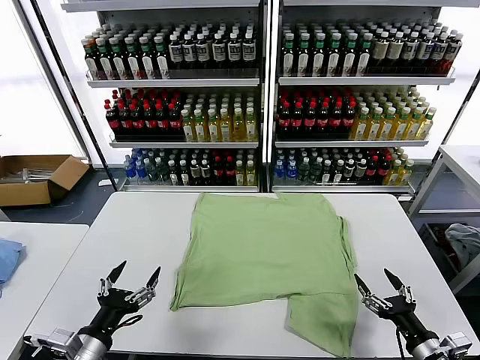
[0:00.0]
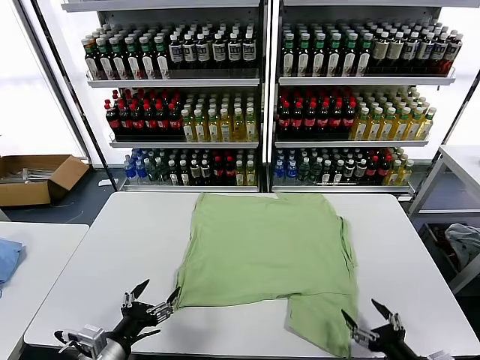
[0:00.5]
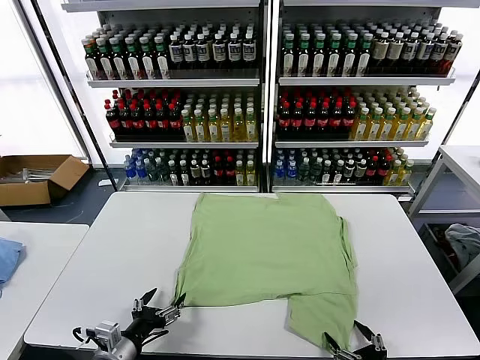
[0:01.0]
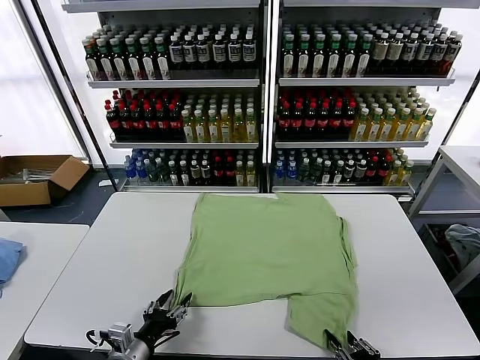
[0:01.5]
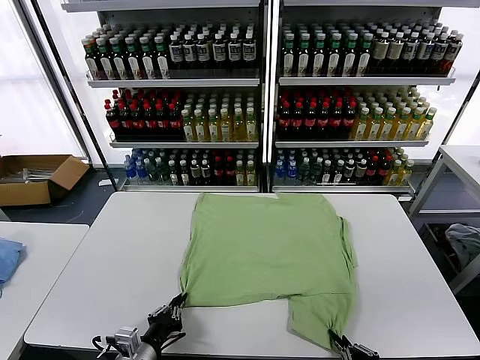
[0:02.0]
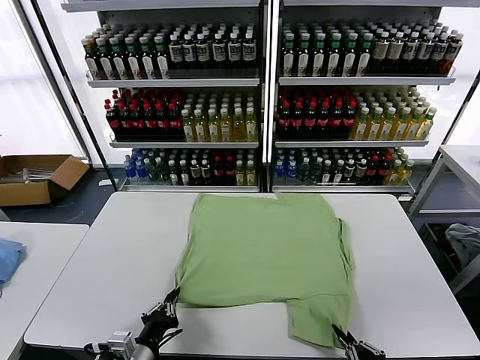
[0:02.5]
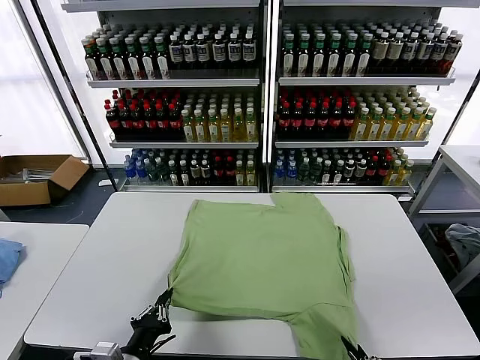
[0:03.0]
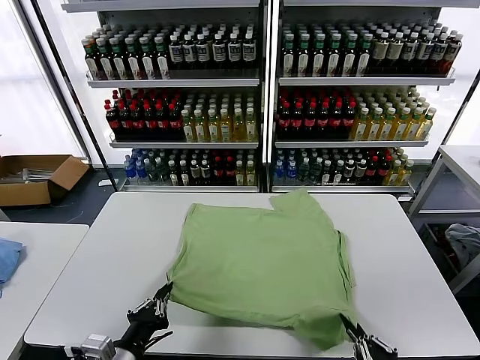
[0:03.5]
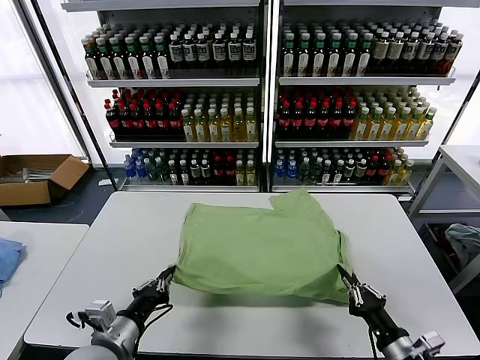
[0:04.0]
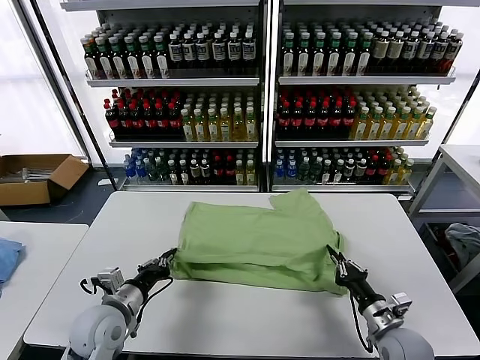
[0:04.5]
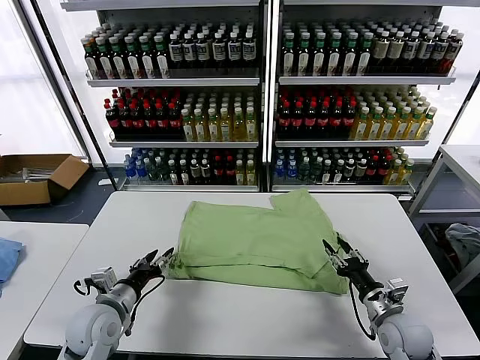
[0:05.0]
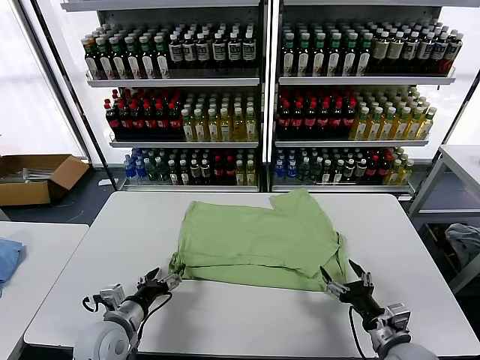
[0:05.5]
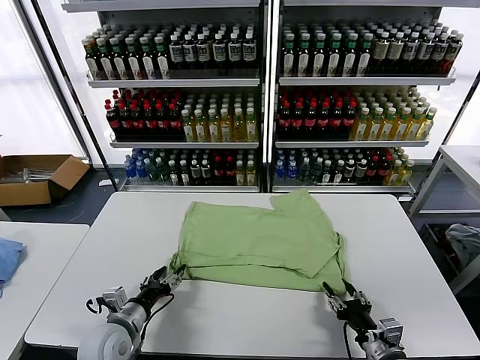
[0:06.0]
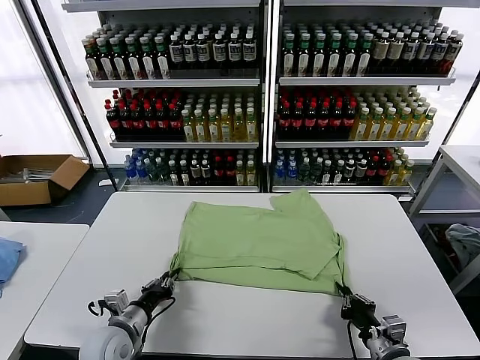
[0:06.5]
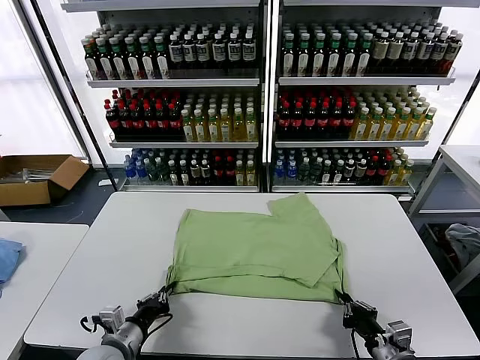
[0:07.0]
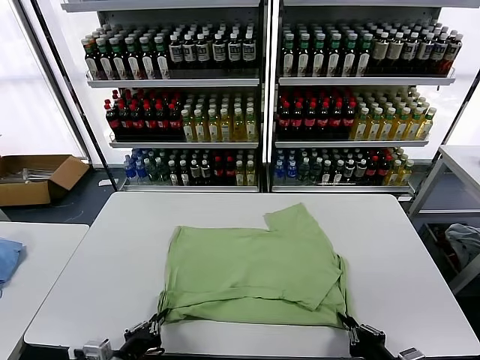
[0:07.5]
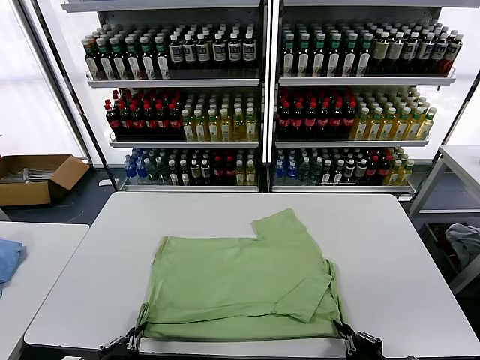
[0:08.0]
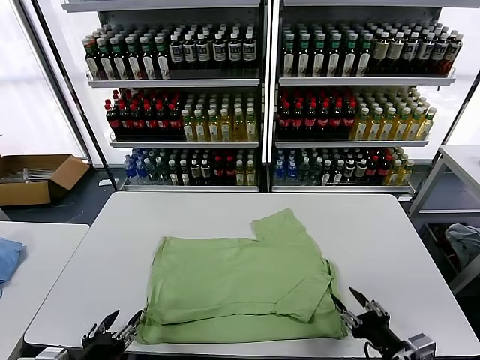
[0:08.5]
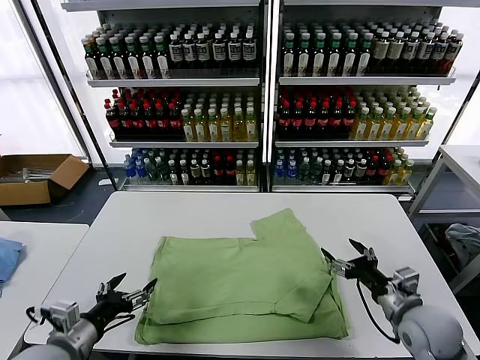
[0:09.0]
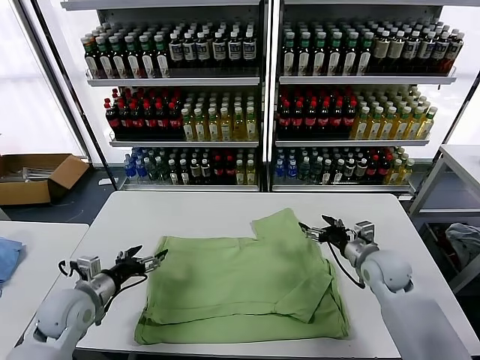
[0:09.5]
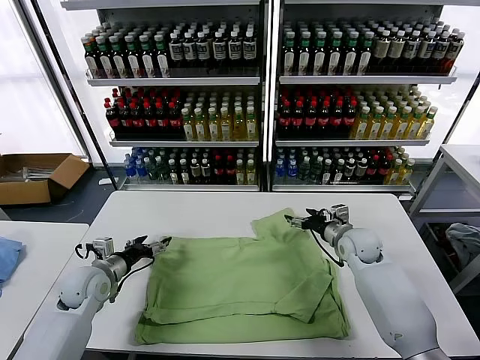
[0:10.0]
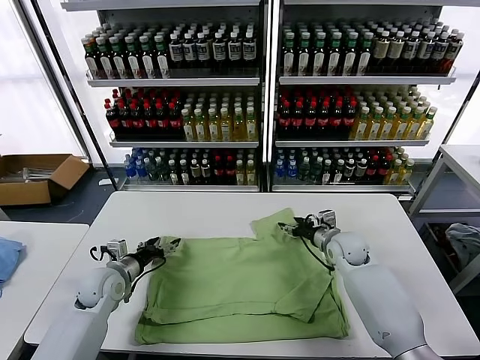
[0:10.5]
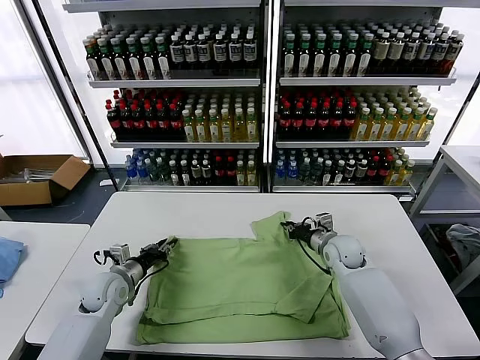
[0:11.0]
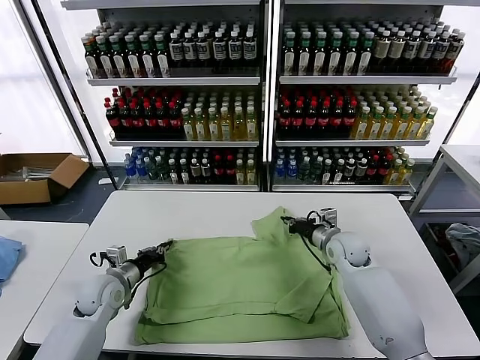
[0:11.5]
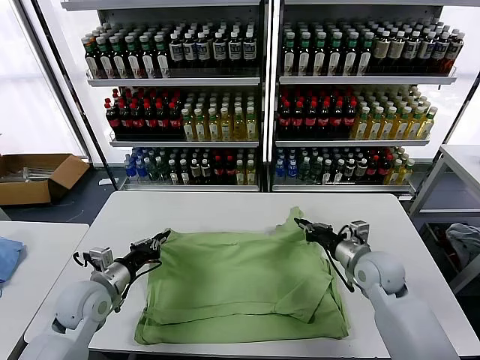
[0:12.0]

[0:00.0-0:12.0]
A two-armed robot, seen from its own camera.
Task of the whole recording: fold and organize the clothes.
Step, 0.0 to 2.0 s: use both grippers simultaneously to clamp the lower edge of the clothing fabric.
Step, 2.5 to 5.0 s: use both grippers to drag the lower edge of the fabric forward and fold it over the upper edge.
Step, 5.5 to 8.0 s: Drag the clothes downward with both gripper.
Step, 8.5 to 11.0 s: use both grippers simultaneously to clamp the upper edge of the clothing fabric.
2.0 to 4.0 s: The left gripper moves upward, roughly 10 cm; the right gripper travels forward by some 10 cm.
4.0 to 6.0 s: The right gripper travels forward and back again, roughly 10 cm each way, and opens its fingers; the left gripper is displaced downward and forward by some 10 cm, and opens its fingers.
6.0 to 8.0 s: The left gripper moves backward and upward, approximately 15 cm, and closes up. Meanwhile the right gripper is displaced backward by roughly 10 cm.
8.0 to 10.0 s: The two grippers go about 30 cm forward. The left gripper opens its fingers, while the right gripper opens its fingers.
10.0 to 12.0 s: The right gripper is displaced backward by about 10 cm, and closes up, while the left gripper moves about 5 cm, and closes.

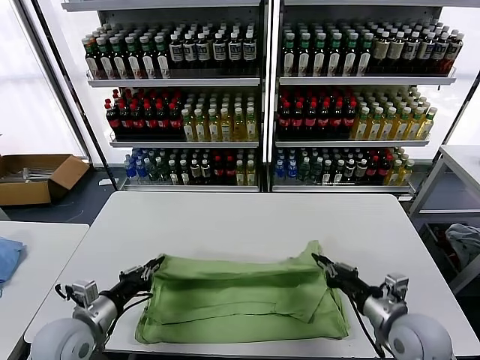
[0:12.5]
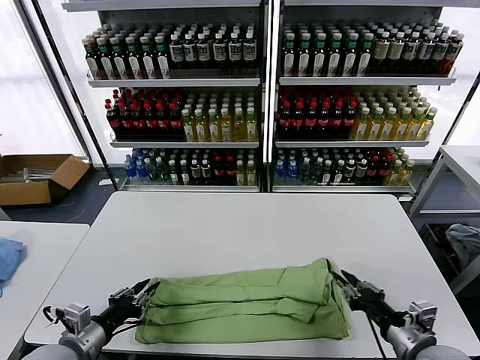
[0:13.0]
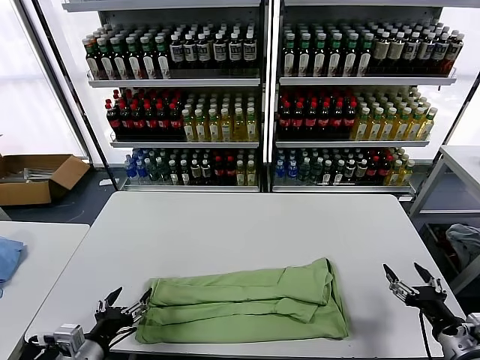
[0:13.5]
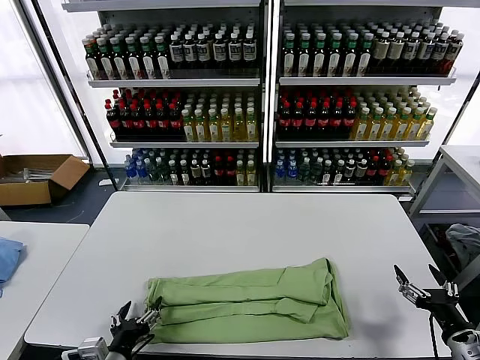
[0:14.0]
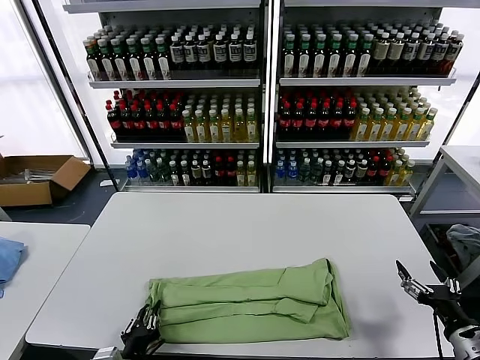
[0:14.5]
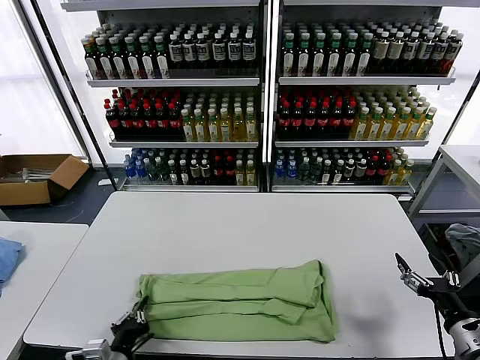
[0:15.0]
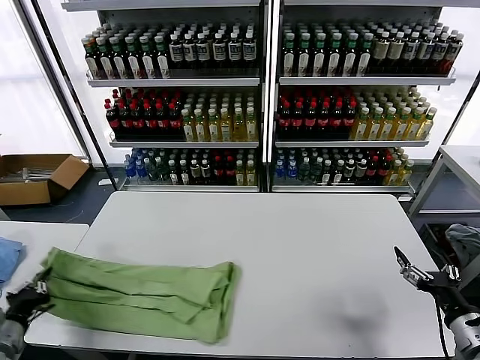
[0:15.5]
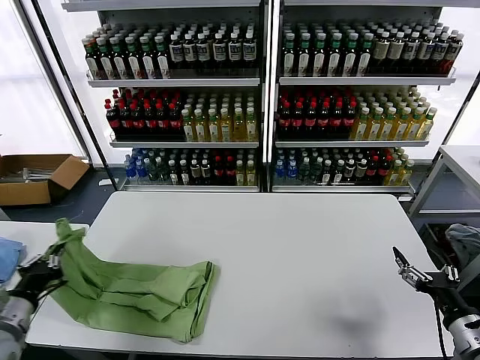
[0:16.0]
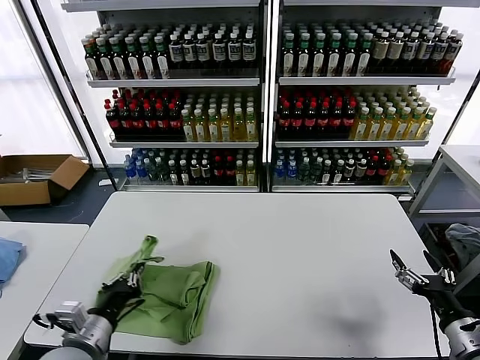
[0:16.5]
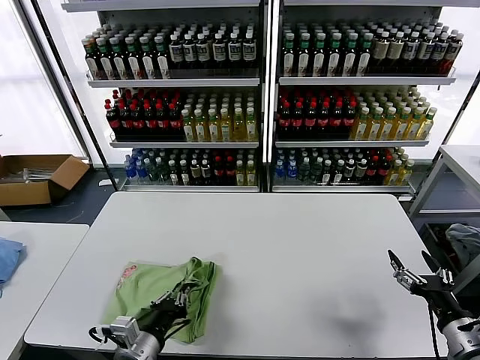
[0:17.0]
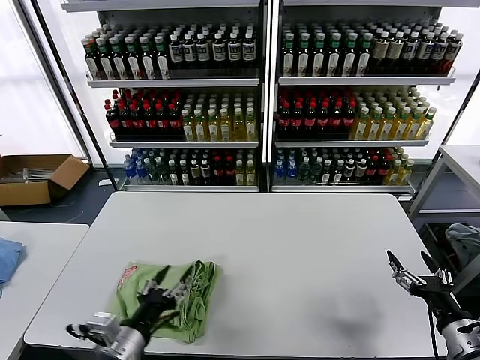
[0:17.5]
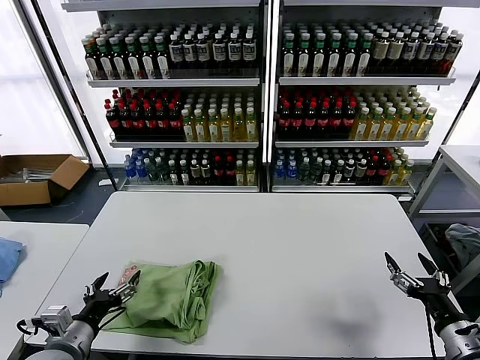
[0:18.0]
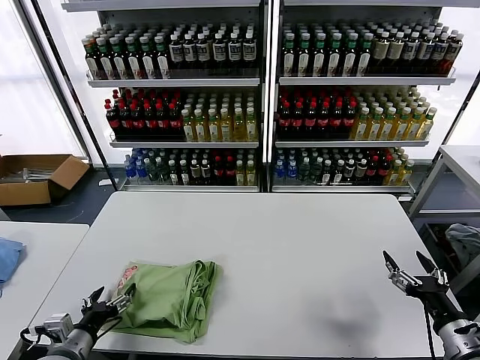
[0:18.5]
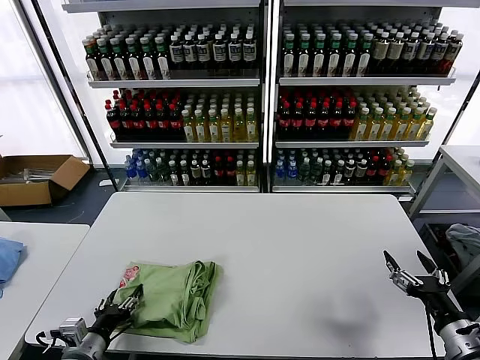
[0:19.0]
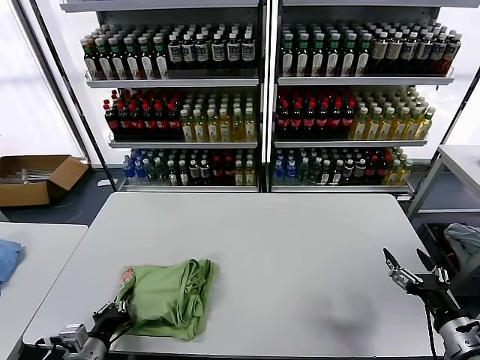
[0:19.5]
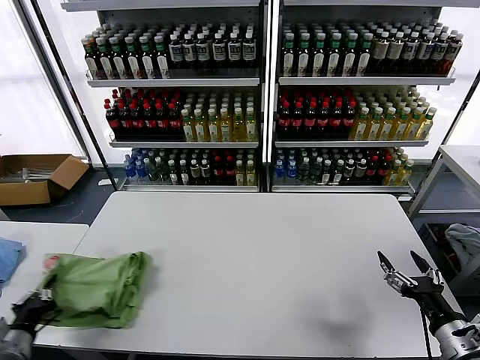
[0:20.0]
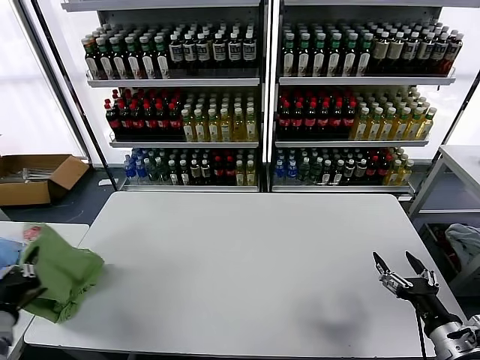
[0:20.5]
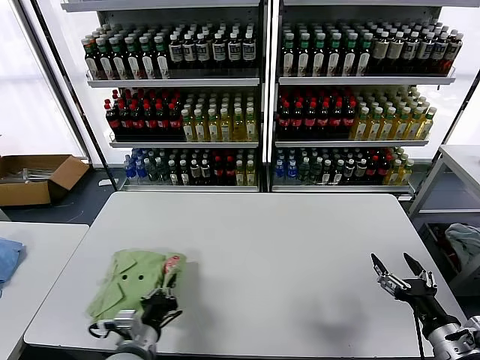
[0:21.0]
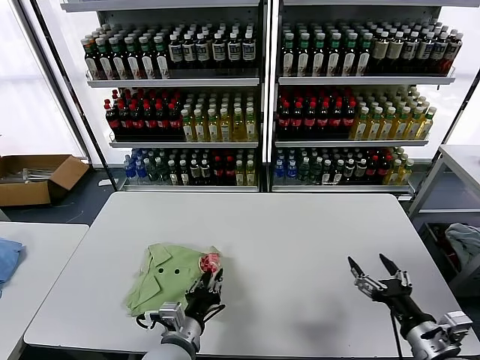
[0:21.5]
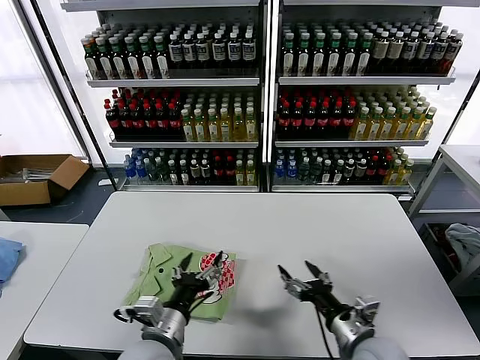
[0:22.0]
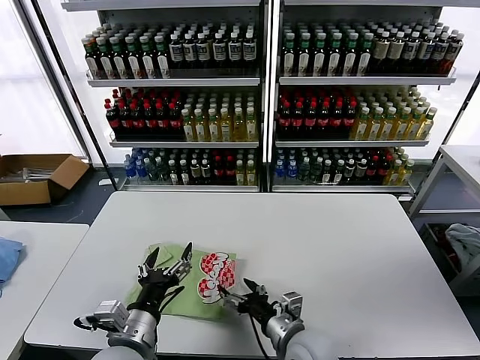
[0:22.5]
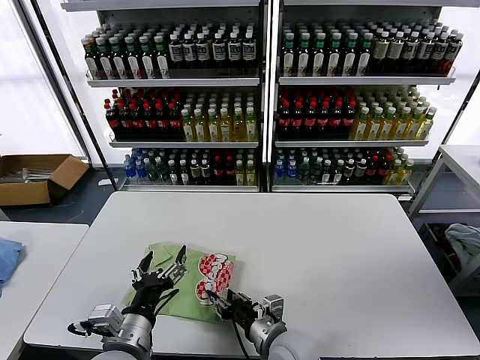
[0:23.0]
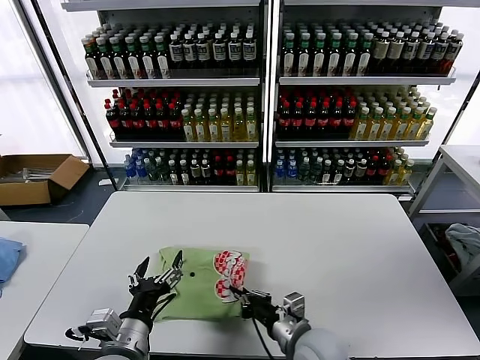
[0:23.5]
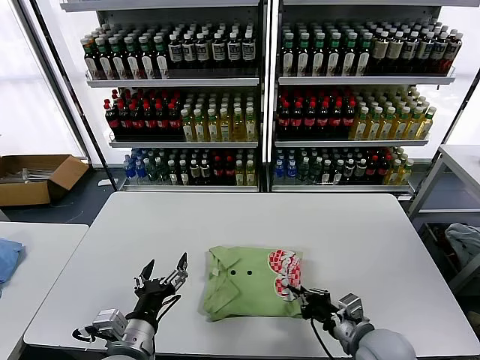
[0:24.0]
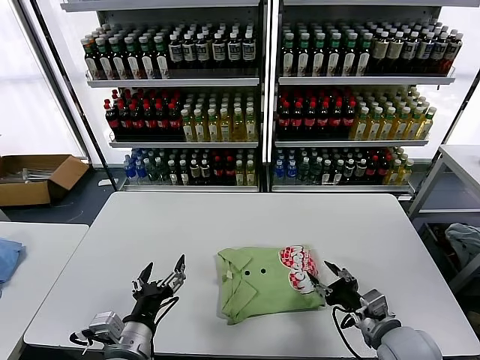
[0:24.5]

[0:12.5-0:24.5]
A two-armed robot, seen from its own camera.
Task of the whole recording: fold and organize the clothes.
Step, 13.5 to 14.5 s: use the left gripper to clamp the left edge of the fabric.
Step, 15.0 to 17.0 s: use the left gripper to drag the left edge of the fabric to the left and folds it over the right edge.
Step, 17.5 to 21.5 s: Flip the folded clothes over with left gripper.
12.5 to 14.5 s: The left gripper travels backward, to the right and downward by approximately 15 cm, and opens its fingers; the right gripper is displaced to the right and backward by approximately 15 cm, and opens.
14.5 to 16.5 s: The left gripper heads upward and forward, covering about 10 cm, and moves some 25 cm to the left and comes back.
16.5 to 18.5 s: The left gripper travels downward and to the left by about 10 cm, and opens.
18.5 to 20.5 s: The left gripper shifts roughly 15 cm upward and to the left, and closes up.
20.5 to 22.5 s: The left gripper travels to the right by some 25 cm, and opens. Meanwhile the right gripper moves to the left, about 25 cm.
22.5 to 24.5 s: The right gripper goes about 15 cm to the right, and closes up.

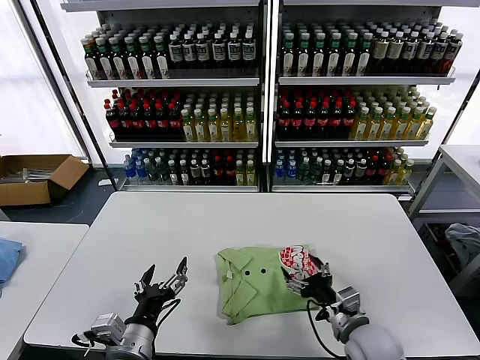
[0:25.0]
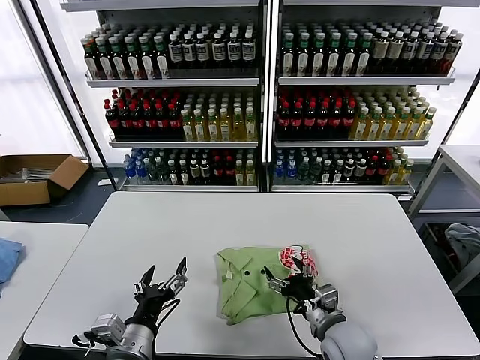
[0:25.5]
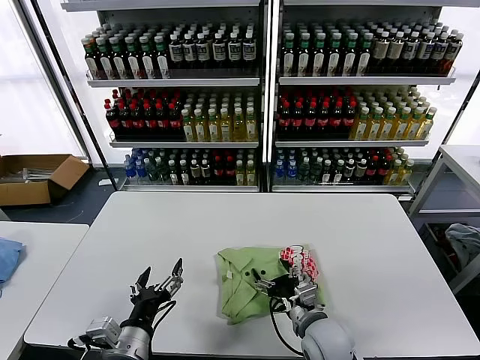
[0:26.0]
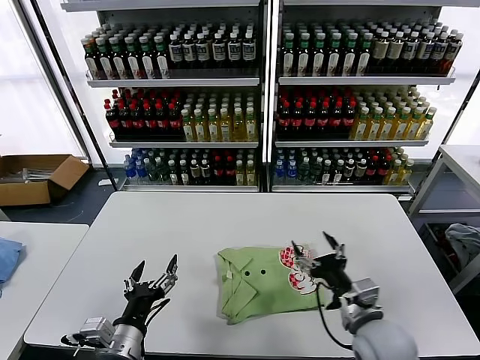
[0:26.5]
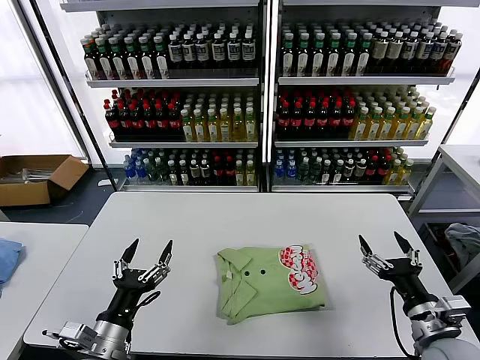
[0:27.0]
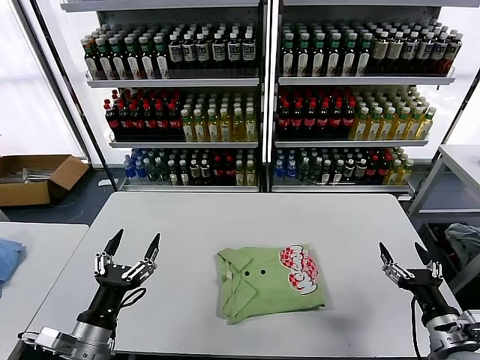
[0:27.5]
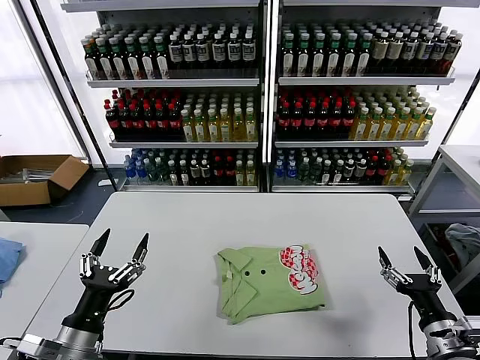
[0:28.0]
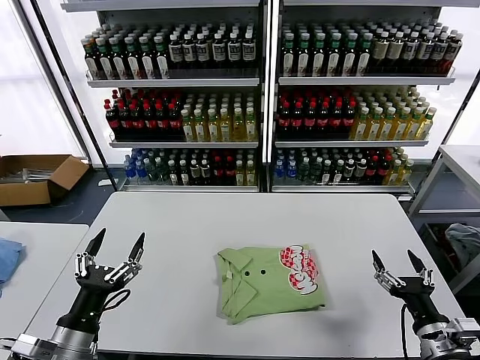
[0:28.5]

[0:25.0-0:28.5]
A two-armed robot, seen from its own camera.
Task of the whole recording: fold and organize the clothes.
25.0 to 27.0 s: The left gripper moves to the left, some 5 cm, while the right gripper is displaced to the right and upward by about 10 cm.
27.0 to 28.5 s: The left gripper moves approximately 5 cm.
